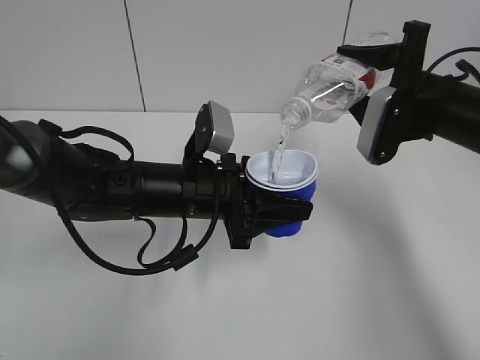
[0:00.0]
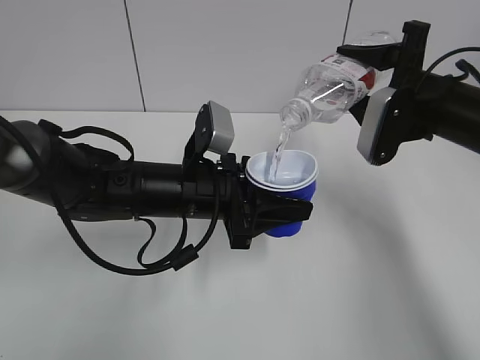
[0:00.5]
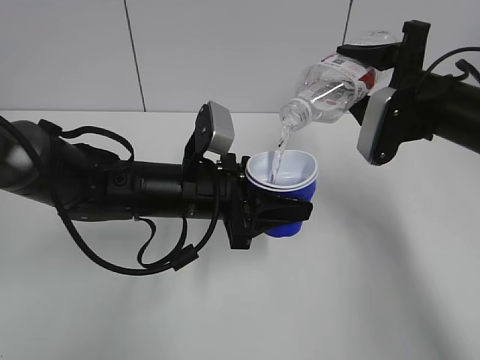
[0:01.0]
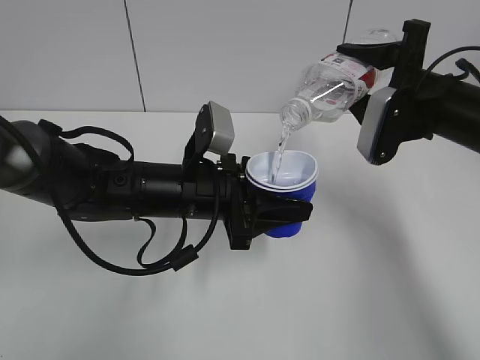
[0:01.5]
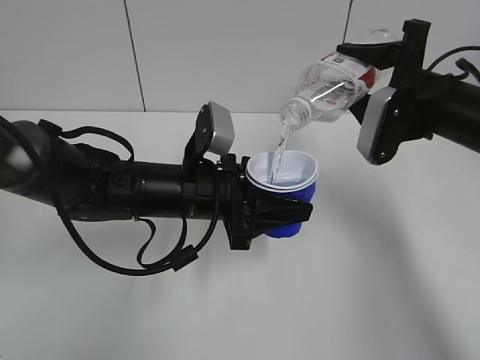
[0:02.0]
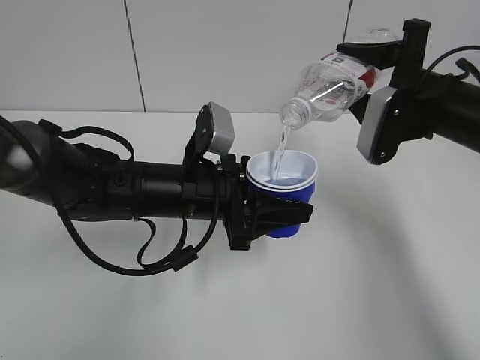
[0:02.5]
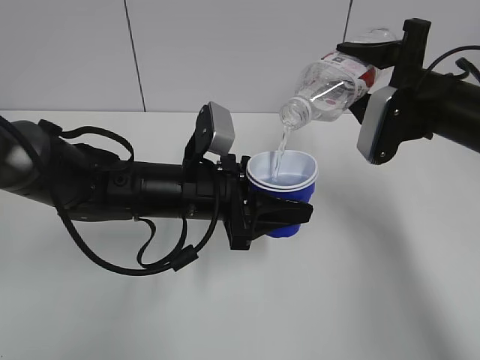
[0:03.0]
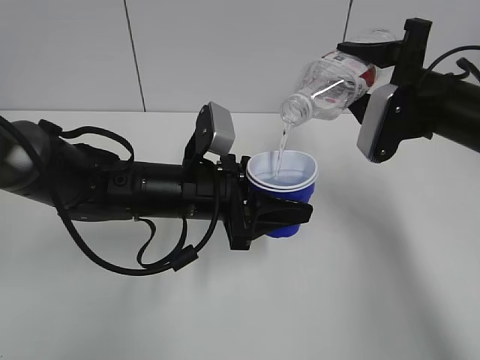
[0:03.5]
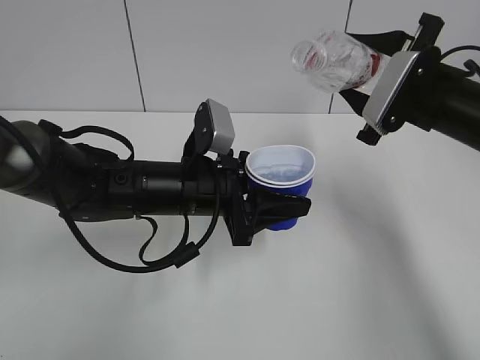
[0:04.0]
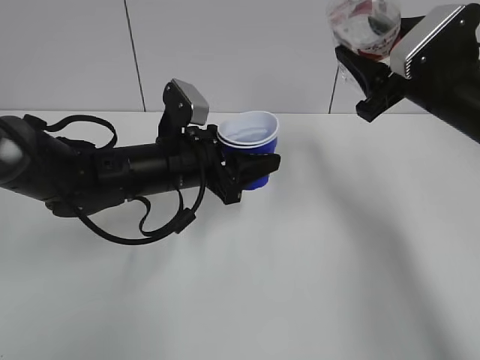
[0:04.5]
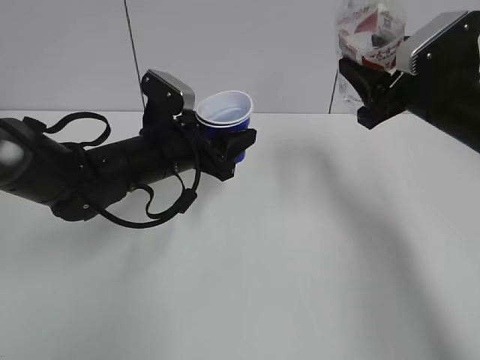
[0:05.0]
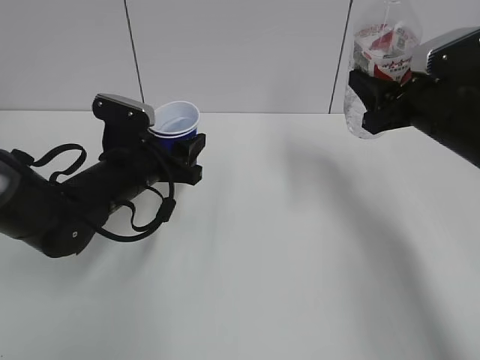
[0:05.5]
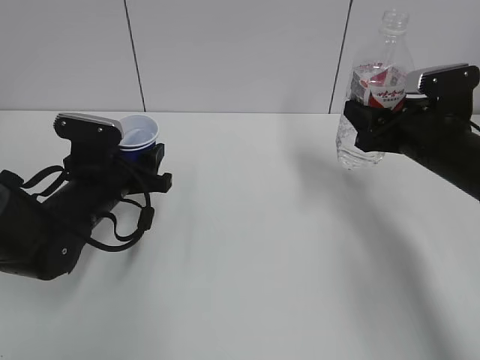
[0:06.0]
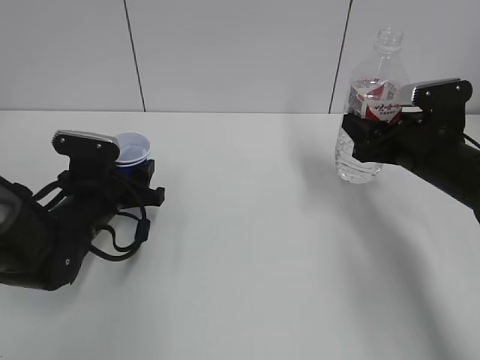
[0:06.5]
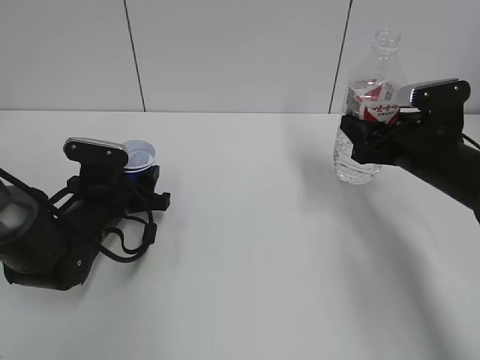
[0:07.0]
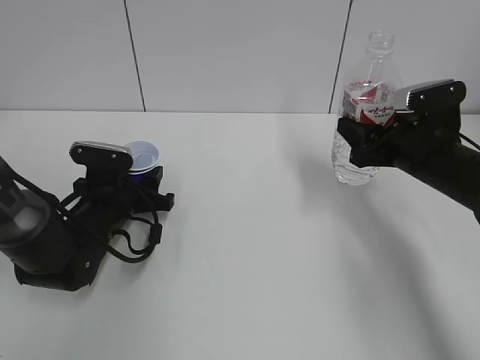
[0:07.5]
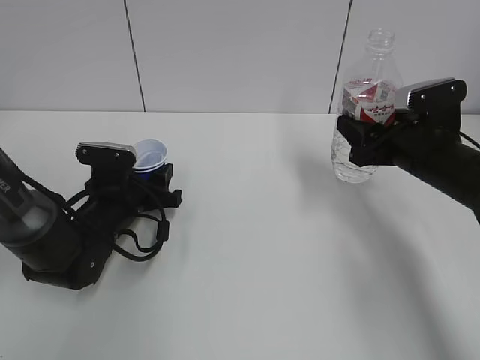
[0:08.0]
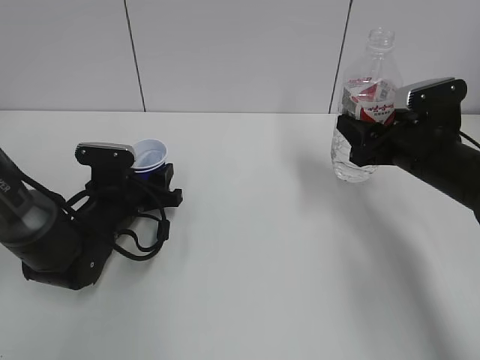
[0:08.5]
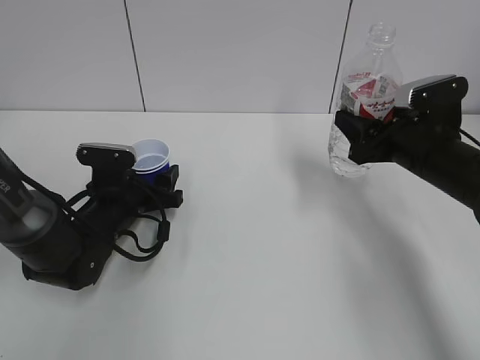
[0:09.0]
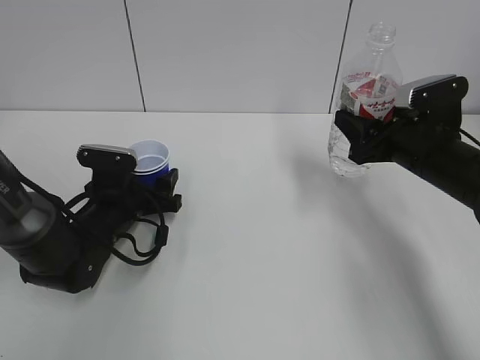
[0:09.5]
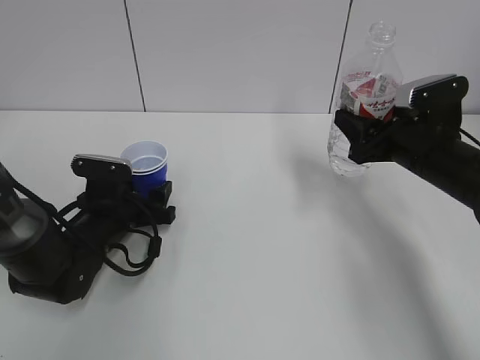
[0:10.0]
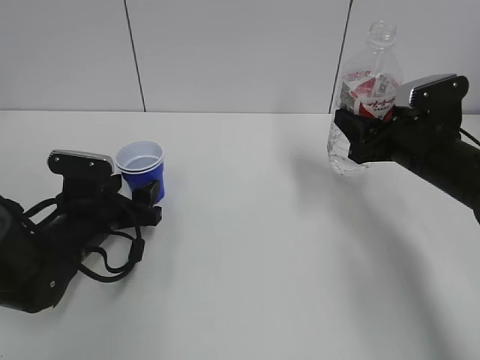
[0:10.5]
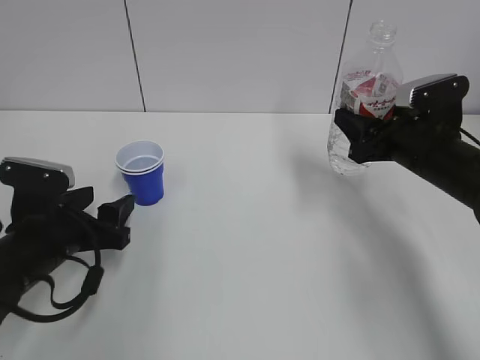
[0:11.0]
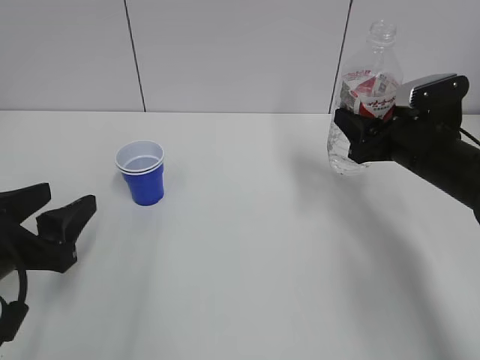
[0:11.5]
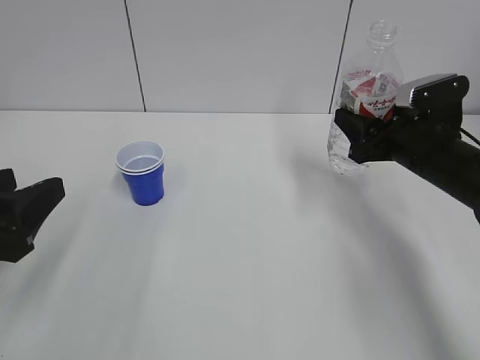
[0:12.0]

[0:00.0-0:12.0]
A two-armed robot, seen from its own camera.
Step, 0:04.0 to 0:05.0: Collect water with the right hand.
Step, 0:05.5 to 0:09.5: Place the paper cup with the left hand.
0:00.0 to 0:02.0: The two grippers keep their place.
0:04.0 to 0:06.0: The left gripper heads to the left, covering some 10 cm. The right gripper heads downward, covering some 5 cm.
0:06.0 to 0:08.0: The left gripper travels downward by about 5 cm.
0:08.0 to 0:10.0: The left gripper opens up.
0:10.0 to 0:12.0: The left gripper heads backward, upward and to the left, covering some 25 cm.

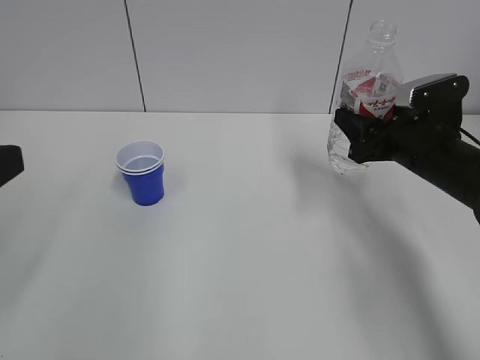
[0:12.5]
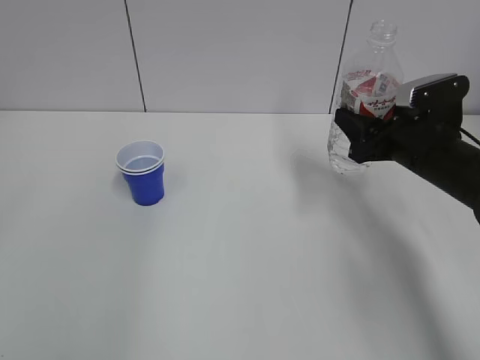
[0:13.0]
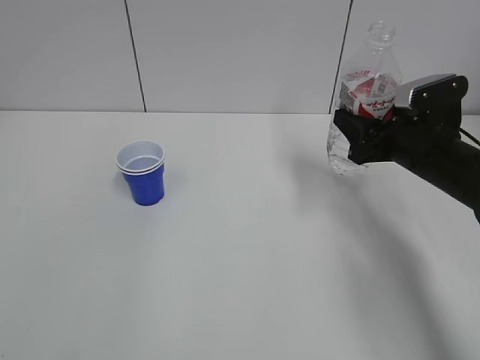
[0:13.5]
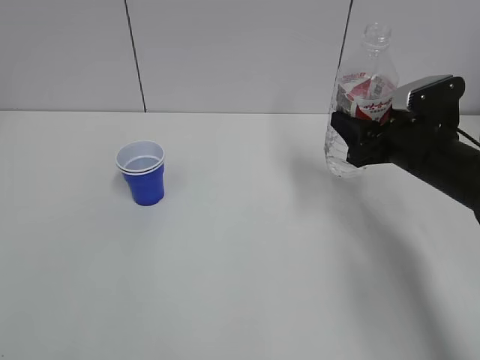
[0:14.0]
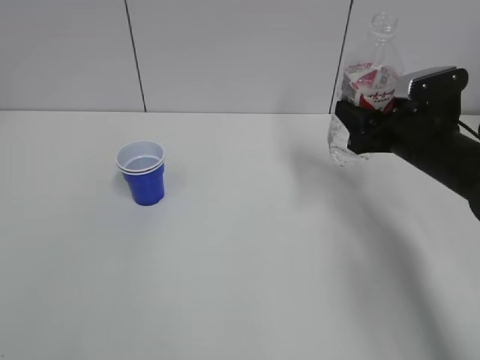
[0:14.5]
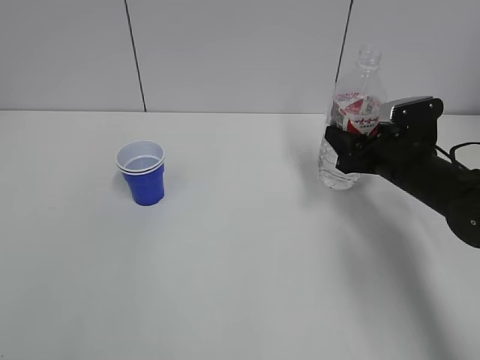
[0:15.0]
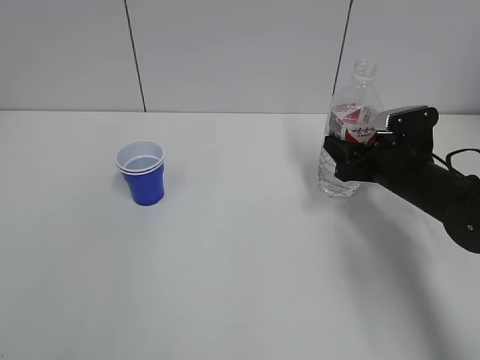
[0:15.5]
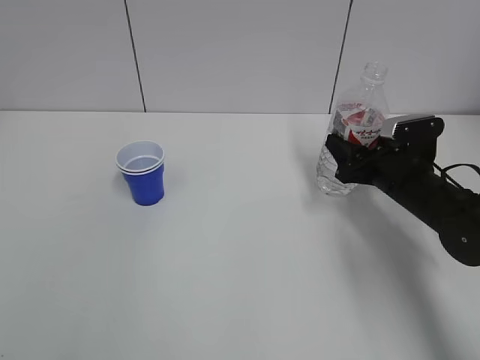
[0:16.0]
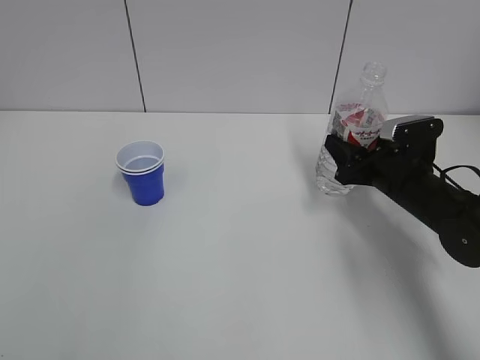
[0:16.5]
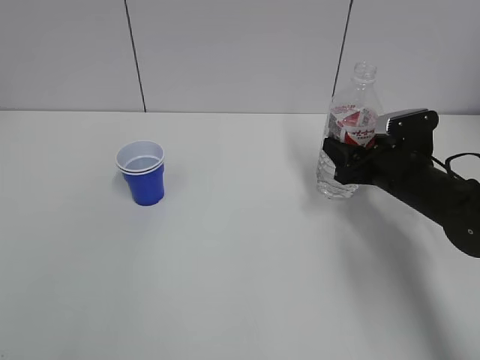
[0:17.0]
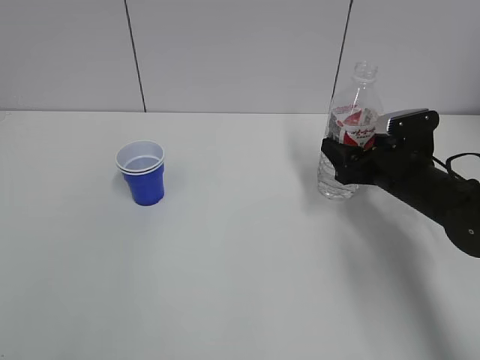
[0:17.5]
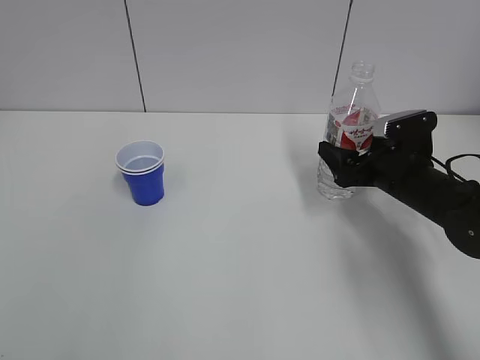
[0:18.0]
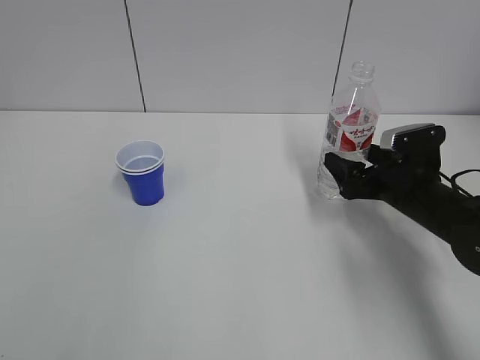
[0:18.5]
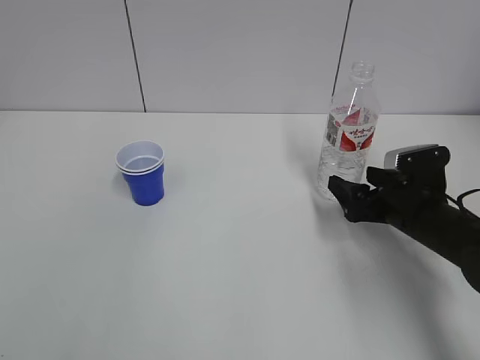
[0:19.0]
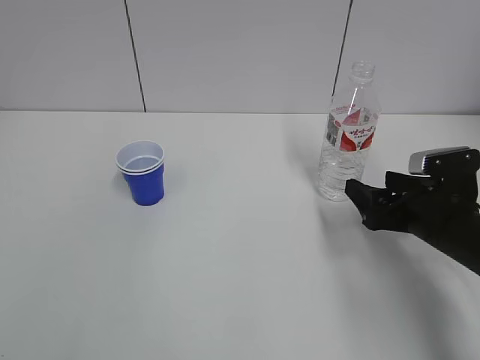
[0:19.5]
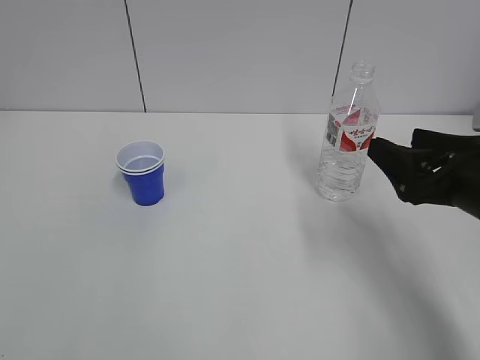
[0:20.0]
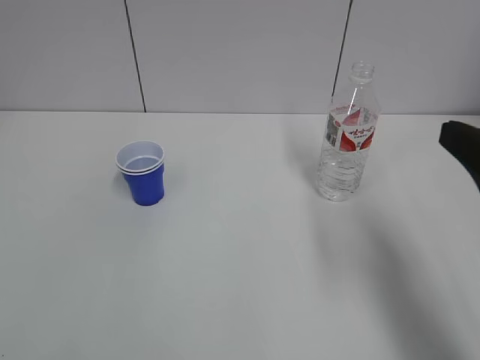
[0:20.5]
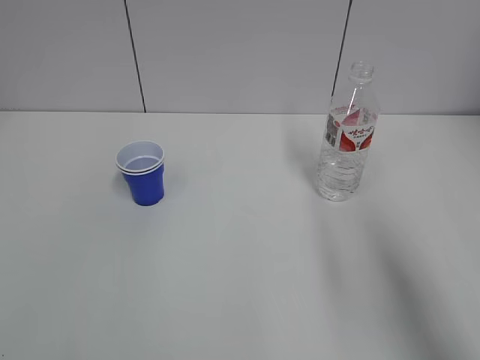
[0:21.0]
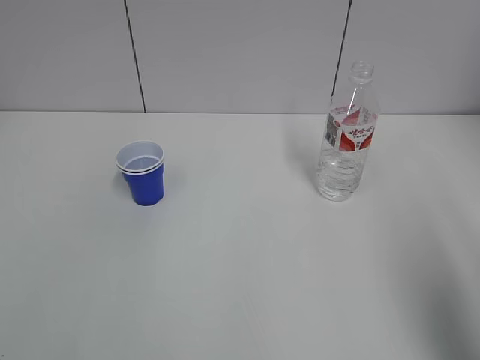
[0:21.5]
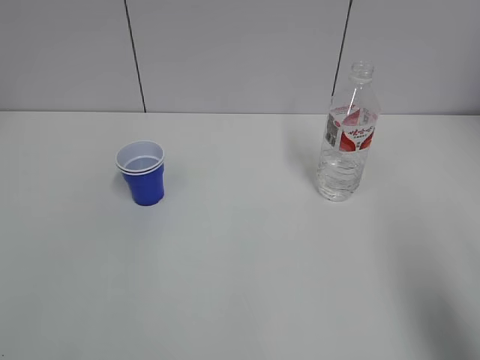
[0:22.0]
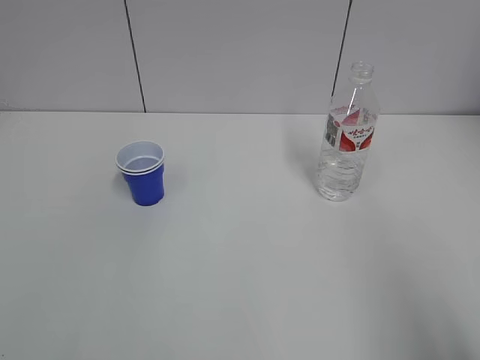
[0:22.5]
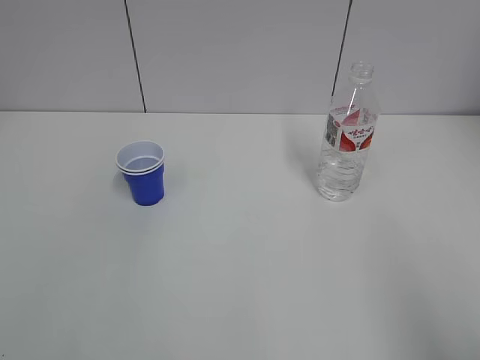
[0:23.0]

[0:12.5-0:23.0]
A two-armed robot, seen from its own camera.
Step, 0:12.5 to 0:18.0: Place the water bottle with the right hand.
0:14.5 to 0:16.5: The right gripper goes about 10 cm downward.
0:16.5 to 0:19.0: The right gripper opens.
0:19.0 to 0:21.0: The right gripper goes approximately 30 cm upward and backward.
0:21.0 to 0:23.0: The right gripper is displaced backward by roughly 10 cm.

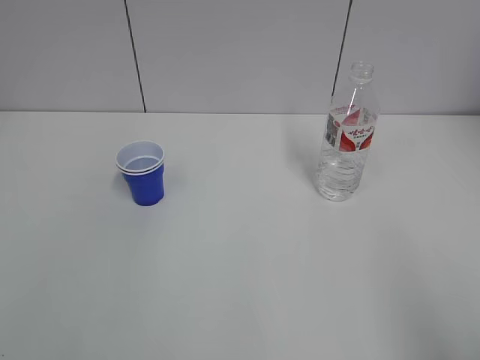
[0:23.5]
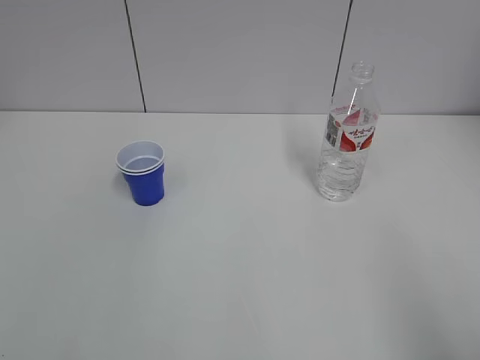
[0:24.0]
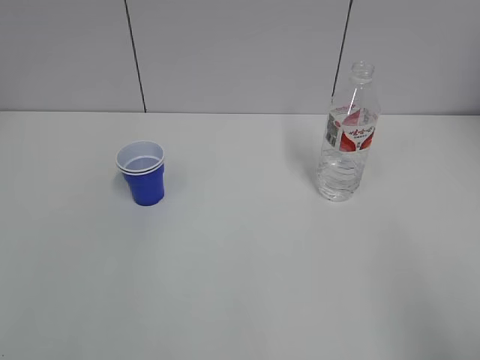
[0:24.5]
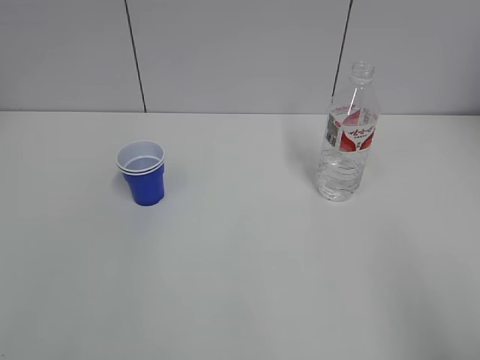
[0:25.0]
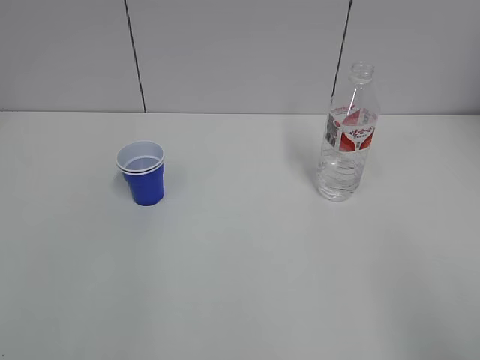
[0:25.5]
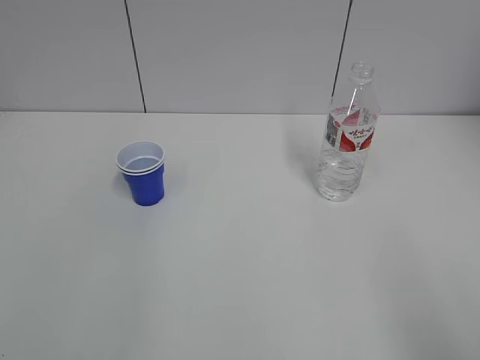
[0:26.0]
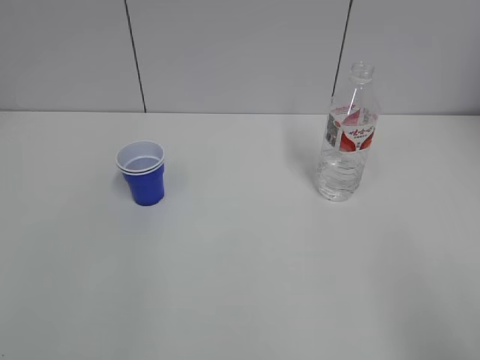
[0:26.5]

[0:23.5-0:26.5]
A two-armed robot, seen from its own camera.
0:23.5 to 0:25.0: Both grippers stay about where they are.
